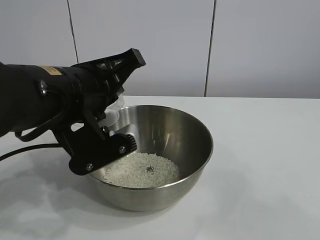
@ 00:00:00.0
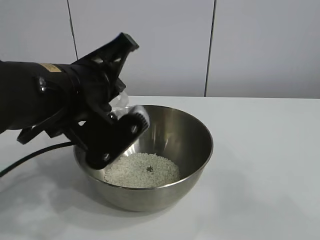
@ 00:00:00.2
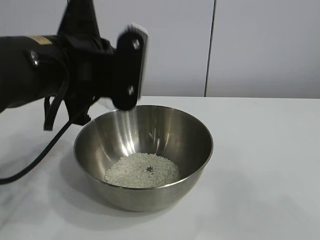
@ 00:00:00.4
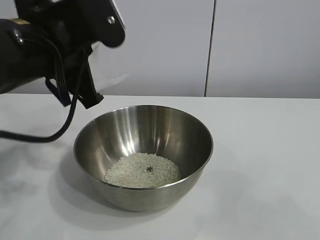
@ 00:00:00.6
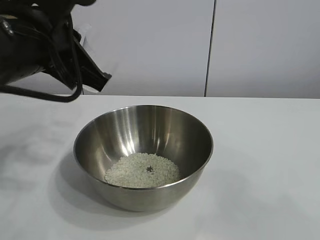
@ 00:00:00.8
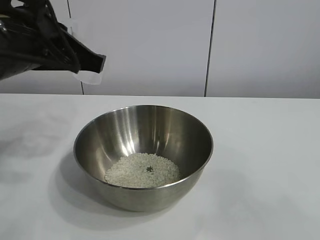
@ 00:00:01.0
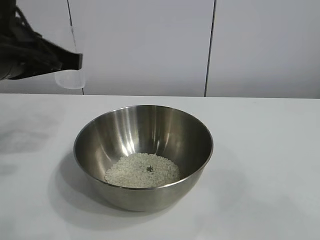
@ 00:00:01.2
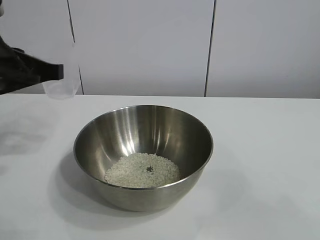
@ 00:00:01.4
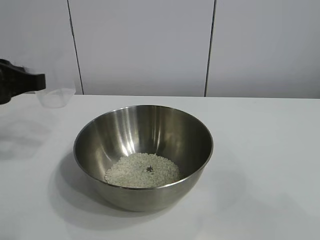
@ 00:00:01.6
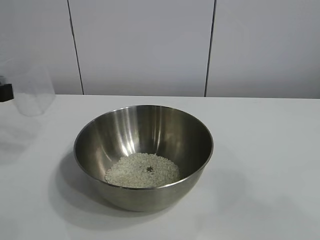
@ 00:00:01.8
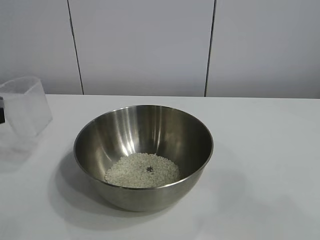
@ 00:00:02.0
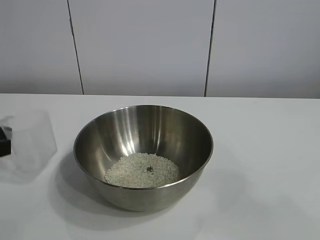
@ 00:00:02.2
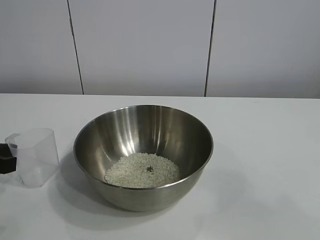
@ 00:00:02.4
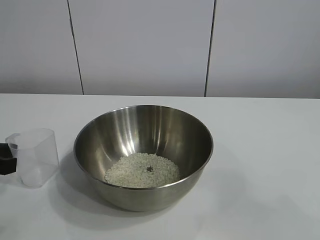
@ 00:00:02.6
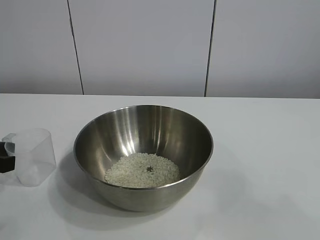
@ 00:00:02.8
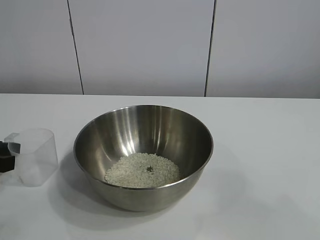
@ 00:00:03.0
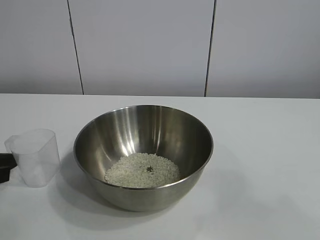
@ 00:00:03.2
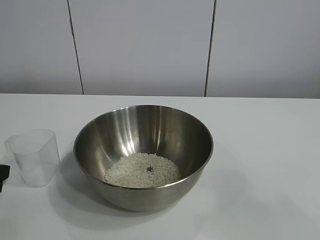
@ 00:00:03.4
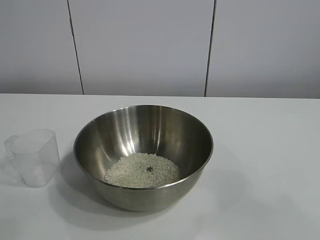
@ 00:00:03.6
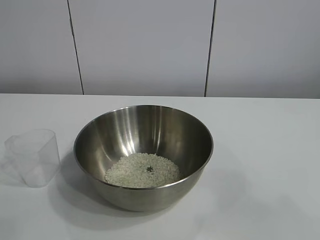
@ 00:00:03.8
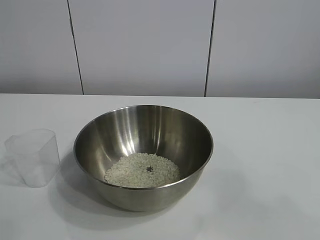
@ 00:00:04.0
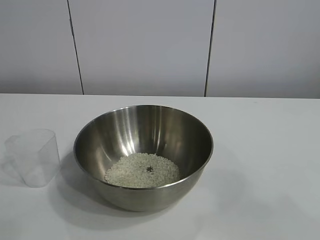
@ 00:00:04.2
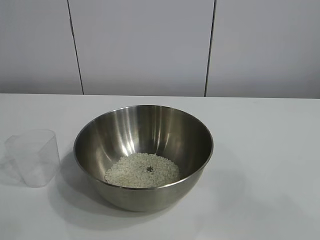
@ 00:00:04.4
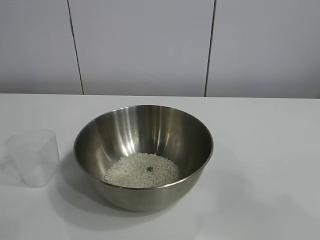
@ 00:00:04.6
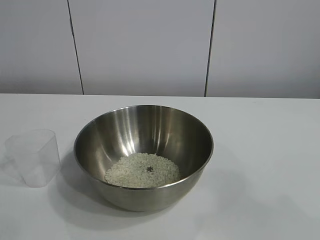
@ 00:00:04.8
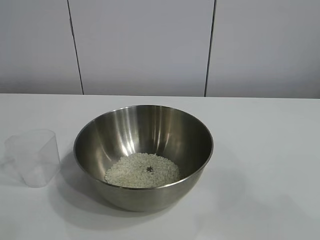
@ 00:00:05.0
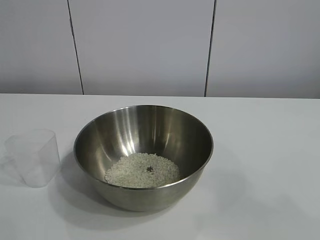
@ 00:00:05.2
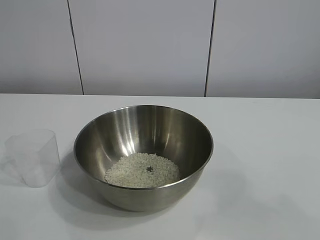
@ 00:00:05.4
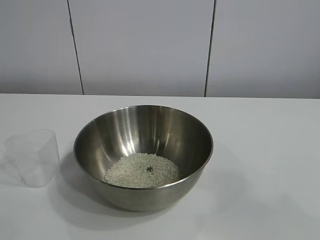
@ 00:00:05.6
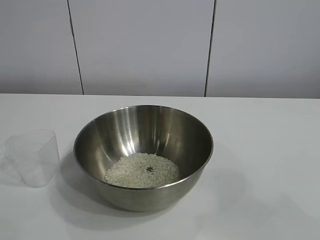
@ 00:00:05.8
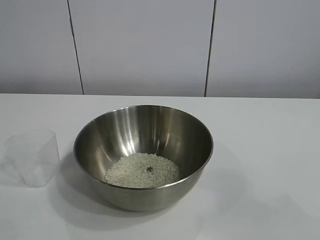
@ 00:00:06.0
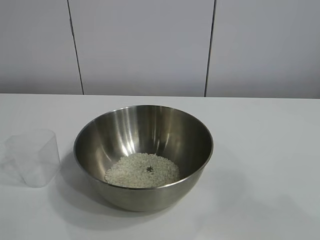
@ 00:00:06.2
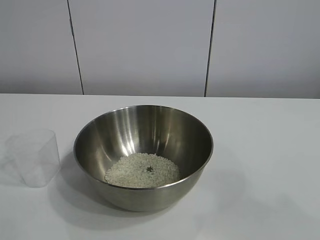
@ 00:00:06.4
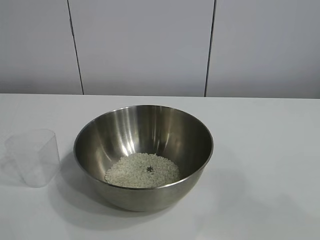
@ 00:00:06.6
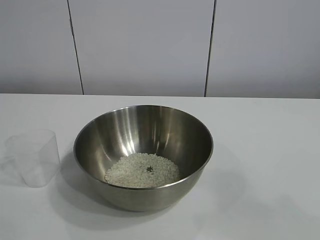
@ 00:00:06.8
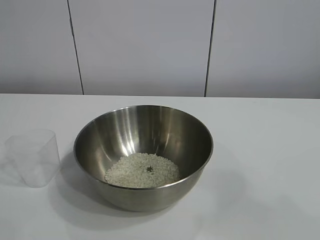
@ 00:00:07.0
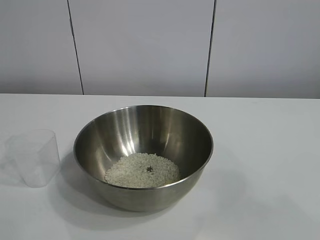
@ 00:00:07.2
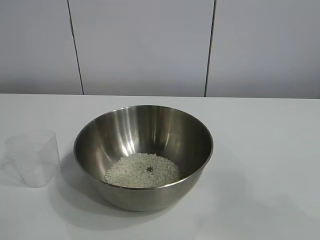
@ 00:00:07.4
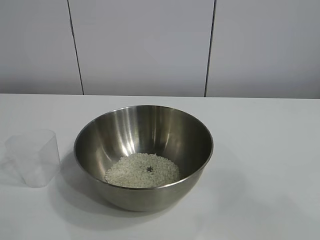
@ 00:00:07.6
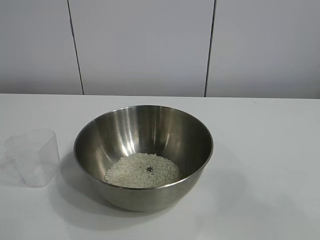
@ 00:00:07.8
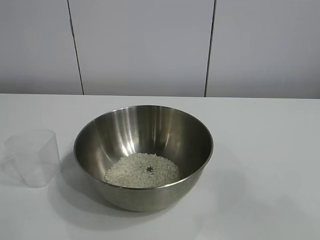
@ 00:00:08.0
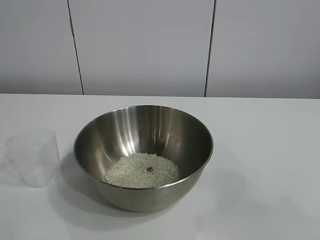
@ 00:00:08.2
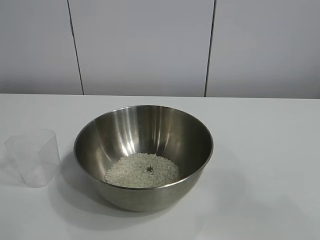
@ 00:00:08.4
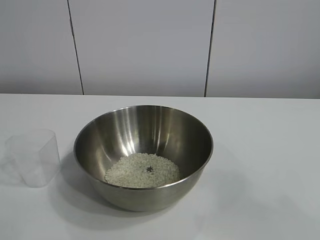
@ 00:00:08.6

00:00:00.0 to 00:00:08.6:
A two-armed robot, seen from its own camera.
Task of the whole recording: the right gripper grasp the rice container and place it in the center of the table, the left gripper grasp the rice scoop and pour the rice into the rice container.
Step, 00:00:00.4 to 00:00:03.0: Place the cup on the table with the left gripper.

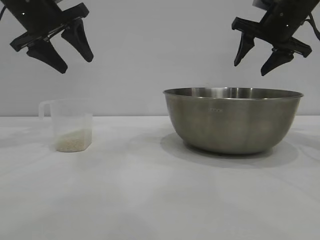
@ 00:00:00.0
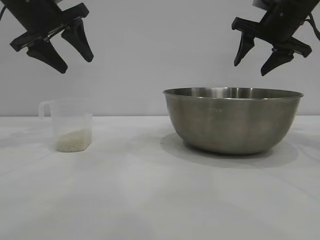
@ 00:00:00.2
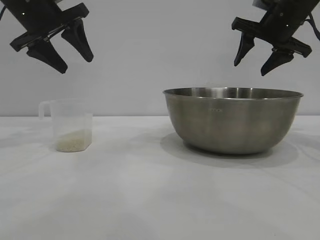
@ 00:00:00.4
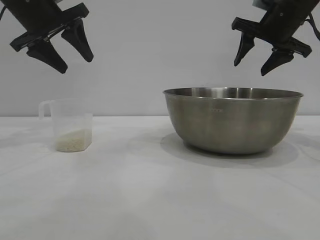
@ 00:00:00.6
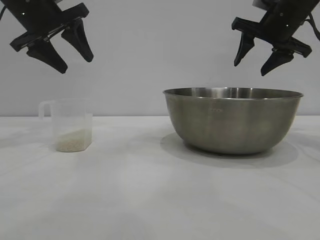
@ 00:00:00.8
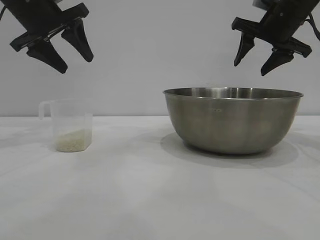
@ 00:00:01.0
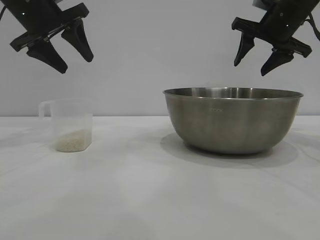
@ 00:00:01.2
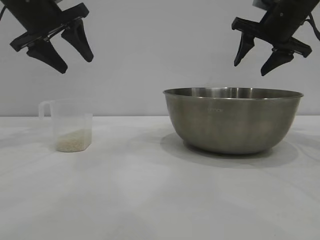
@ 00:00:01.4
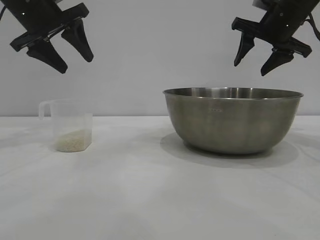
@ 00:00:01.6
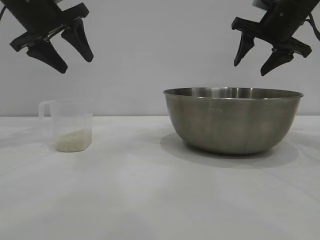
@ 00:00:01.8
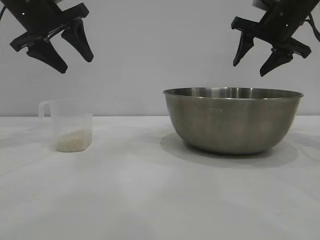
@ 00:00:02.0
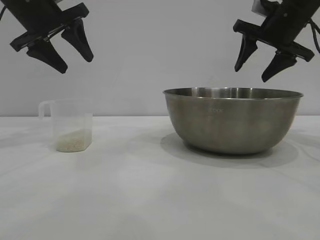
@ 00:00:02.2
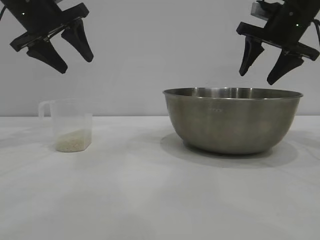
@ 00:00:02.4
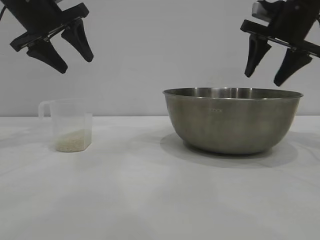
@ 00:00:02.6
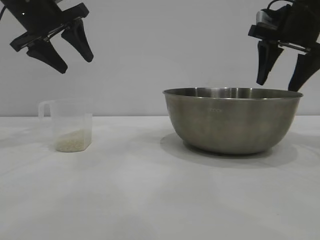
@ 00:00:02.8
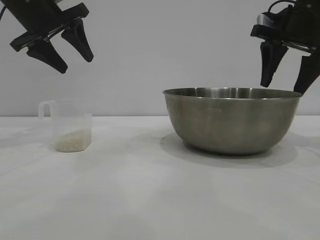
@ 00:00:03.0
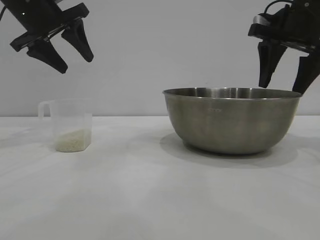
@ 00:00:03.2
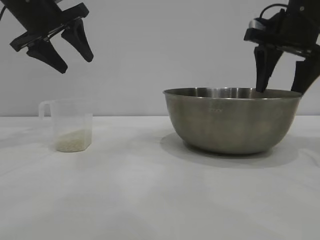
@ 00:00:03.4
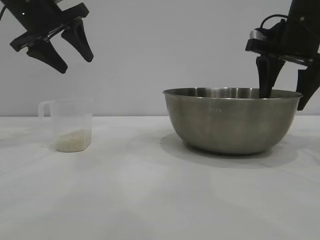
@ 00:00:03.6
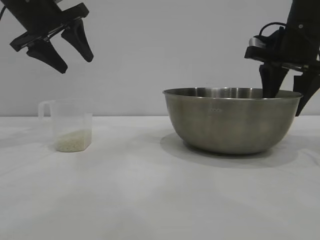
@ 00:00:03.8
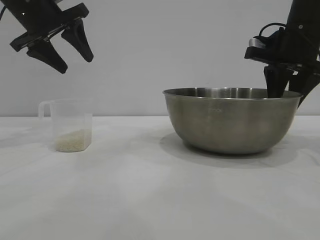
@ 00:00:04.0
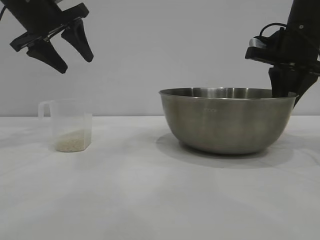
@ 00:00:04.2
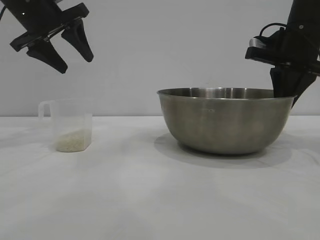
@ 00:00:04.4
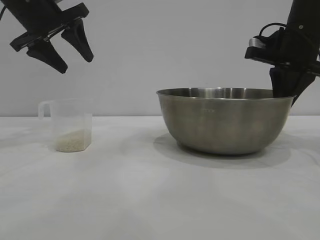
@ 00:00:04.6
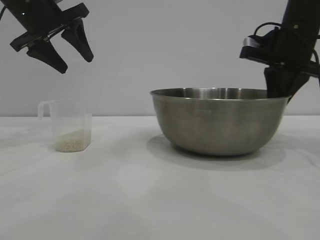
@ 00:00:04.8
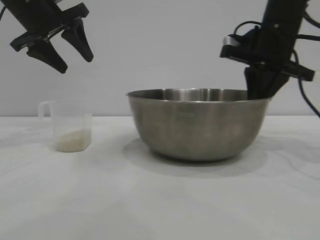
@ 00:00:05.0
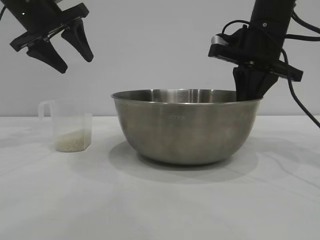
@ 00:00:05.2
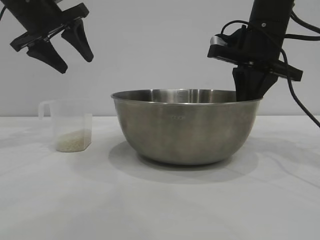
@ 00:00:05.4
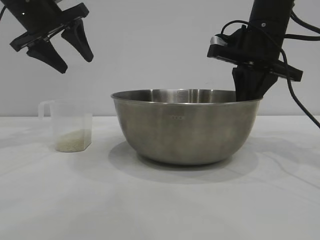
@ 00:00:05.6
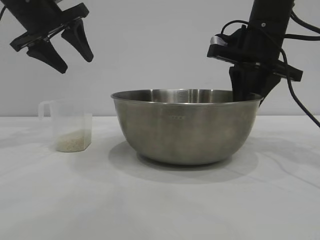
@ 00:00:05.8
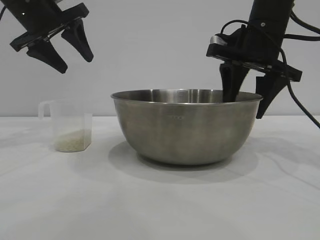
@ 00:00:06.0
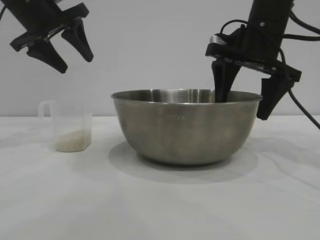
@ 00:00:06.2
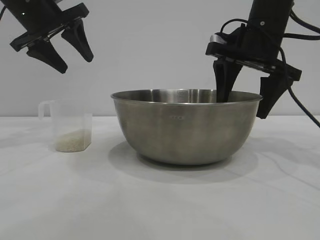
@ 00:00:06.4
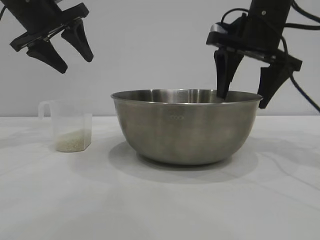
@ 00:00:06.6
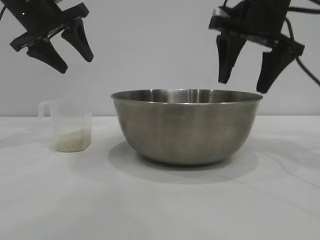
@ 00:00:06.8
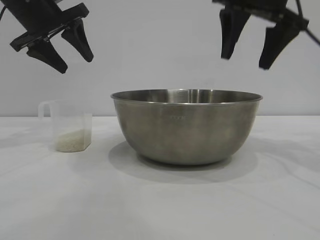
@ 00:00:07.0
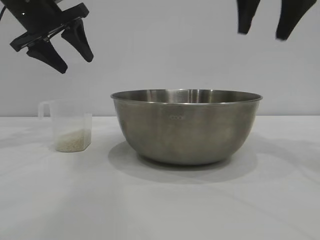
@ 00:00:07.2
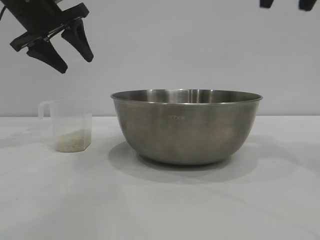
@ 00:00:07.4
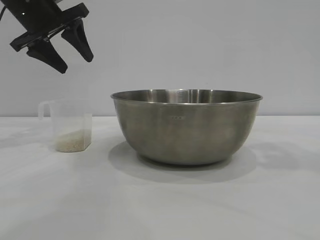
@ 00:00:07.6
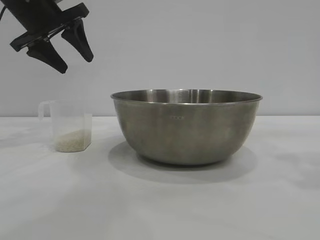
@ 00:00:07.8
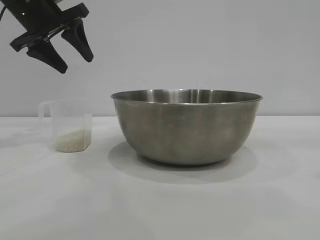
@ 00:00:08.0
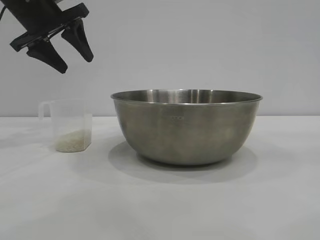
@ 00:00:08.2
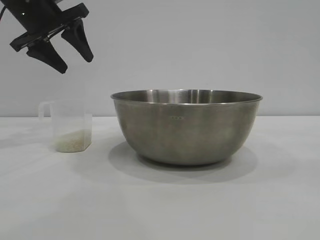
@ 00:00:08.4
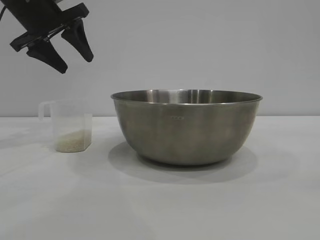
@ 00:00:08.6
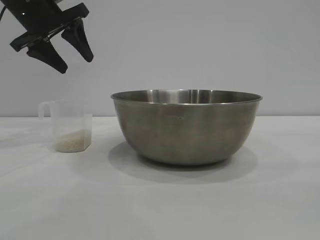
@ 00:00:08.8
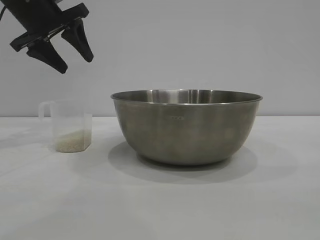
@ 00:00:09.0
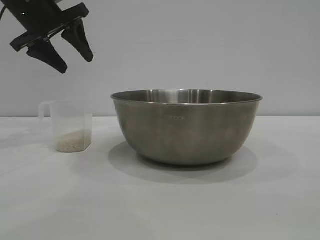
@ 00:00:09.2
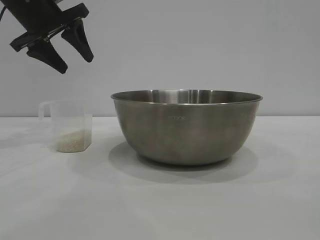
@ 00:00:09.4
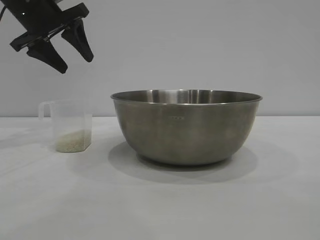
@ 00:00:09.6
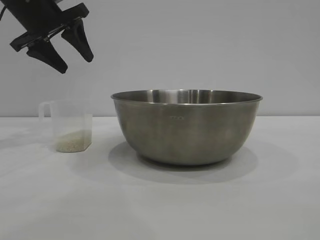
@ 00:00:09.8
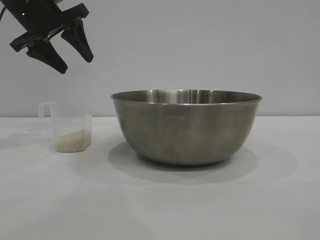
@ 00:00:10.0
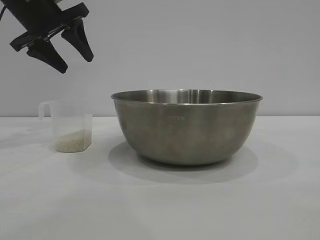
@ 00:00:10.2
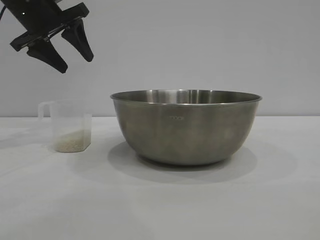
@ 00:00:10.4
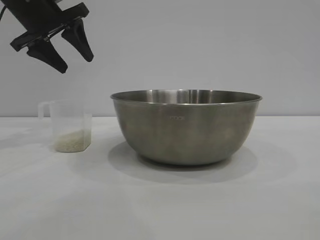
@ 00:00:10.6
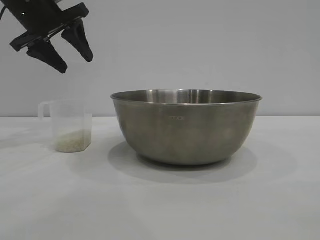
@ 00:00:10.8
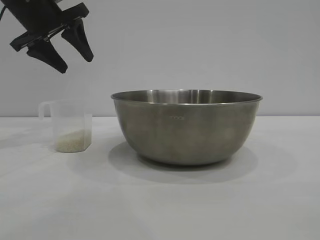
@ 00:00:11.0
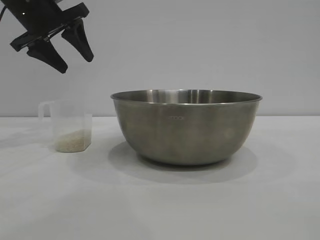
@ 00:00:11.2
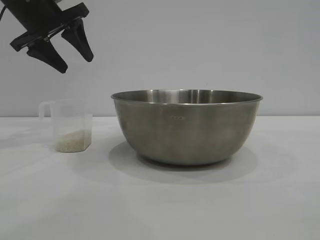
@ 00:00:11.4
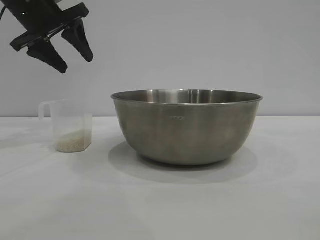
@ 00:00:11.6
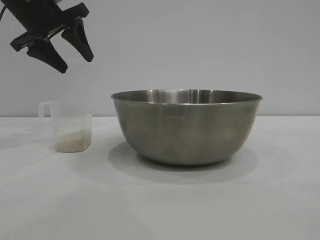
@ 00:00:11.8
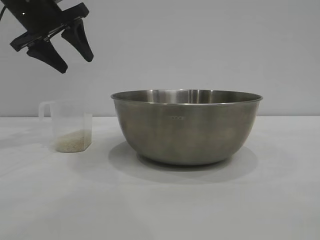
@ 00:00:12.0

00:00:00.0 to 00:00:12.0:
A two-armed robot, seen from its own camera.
Task of the whole recording: the right gripper grasp the rice container and place it in the center of the table, the left gripper grasp the rice scoop and pour the rice into the rice container.
Step, 00:00:00.0 to 00:00:06.8: Move the bowl to the center of view with the right gripper.
